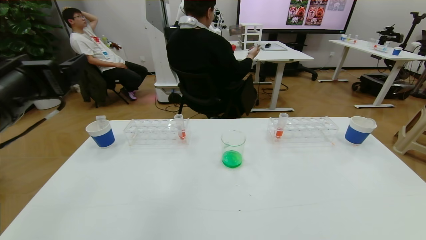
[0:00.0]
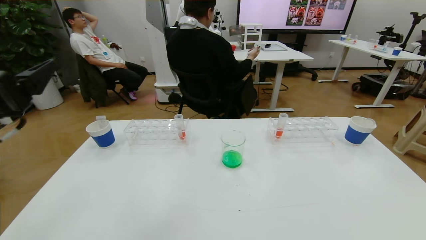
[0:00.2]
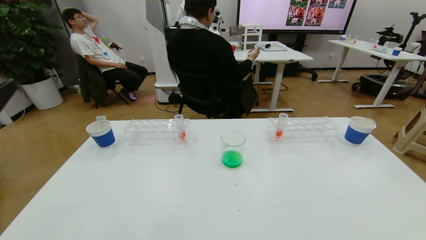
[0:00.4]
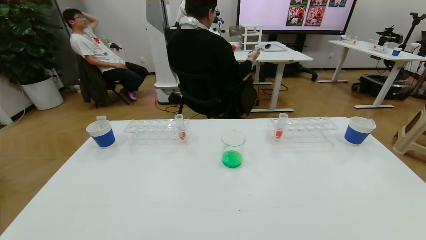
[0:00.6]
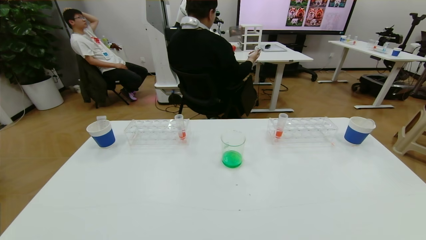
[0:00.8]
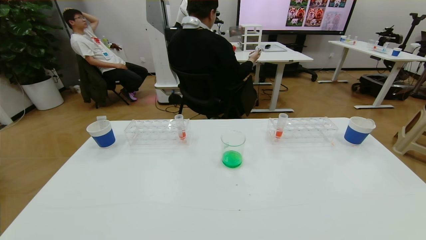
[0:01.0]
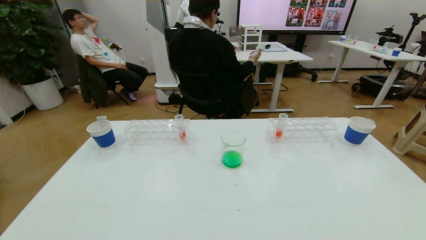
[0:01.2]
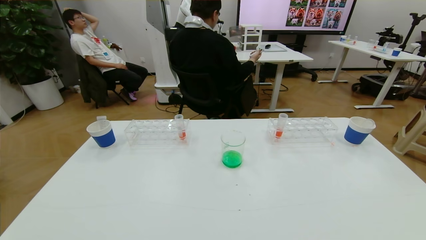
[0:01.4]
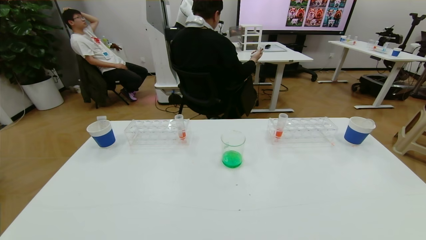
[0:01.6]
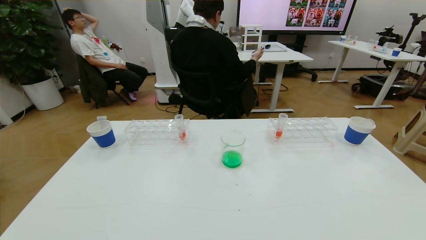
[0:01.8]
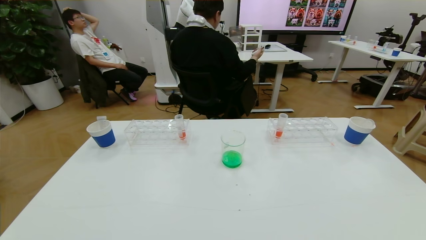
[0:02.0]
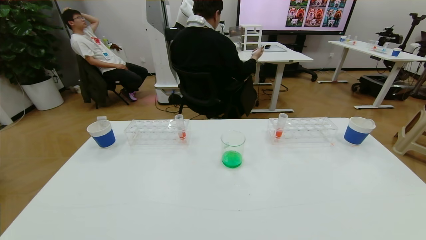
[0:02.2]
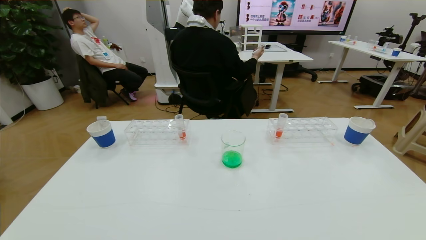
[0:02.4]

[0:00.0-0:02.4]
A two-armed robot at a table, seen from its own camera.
Task of the whole recording: pick up the test tube with yellow pigment and the test tube with blue pigment by grippers and pour them into the beaker.
Step, 0:00.0 to 0:02.4: Pour the blue reagent into the graduated cylinder and place the test tube into the paper cup.
0:00.0 to 0:01.2: The left gripper shifts about 25 cm backward.
0:01.2 to 0:02.4: The left gripper moves downward, approximately 15 cm.
